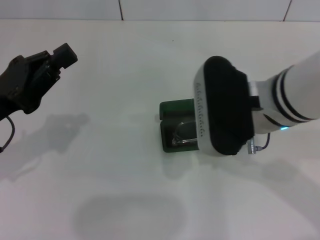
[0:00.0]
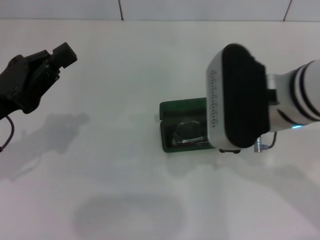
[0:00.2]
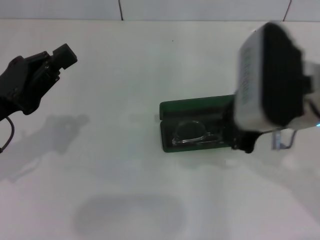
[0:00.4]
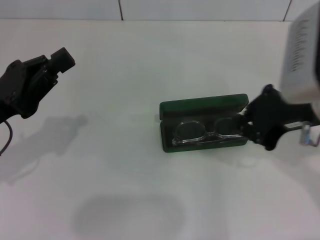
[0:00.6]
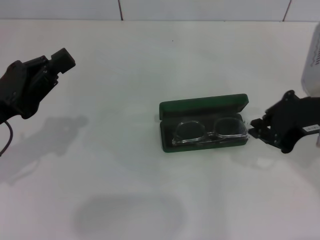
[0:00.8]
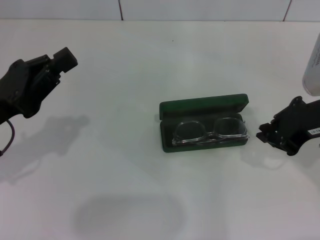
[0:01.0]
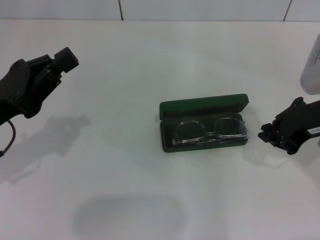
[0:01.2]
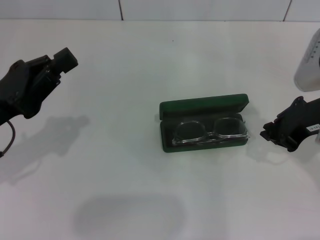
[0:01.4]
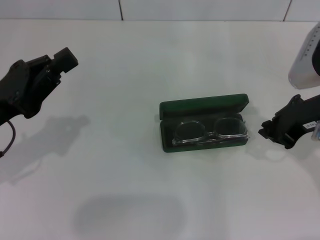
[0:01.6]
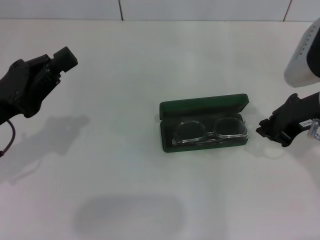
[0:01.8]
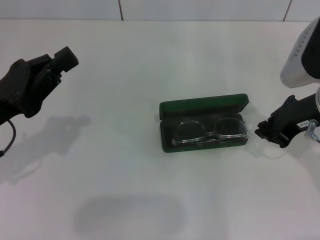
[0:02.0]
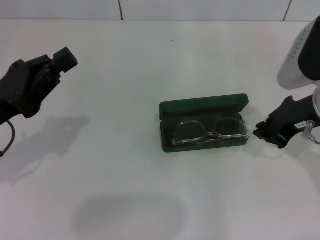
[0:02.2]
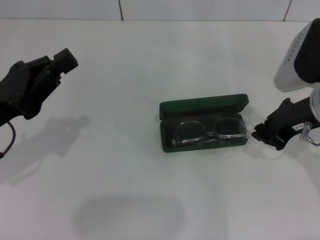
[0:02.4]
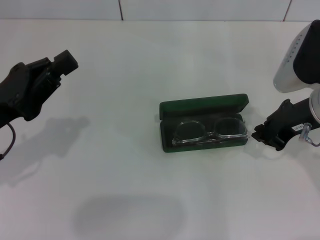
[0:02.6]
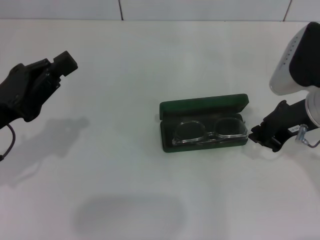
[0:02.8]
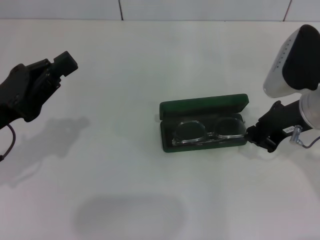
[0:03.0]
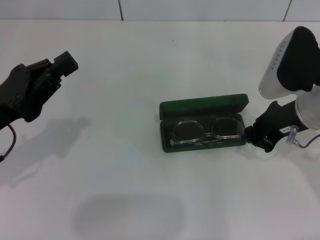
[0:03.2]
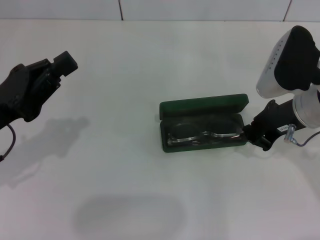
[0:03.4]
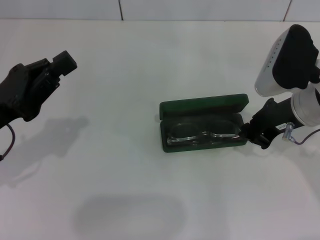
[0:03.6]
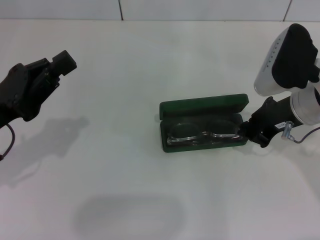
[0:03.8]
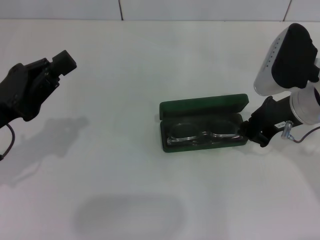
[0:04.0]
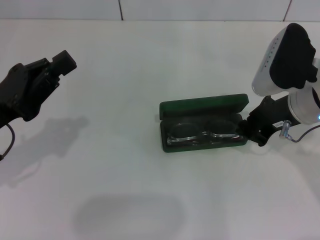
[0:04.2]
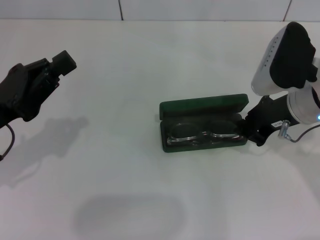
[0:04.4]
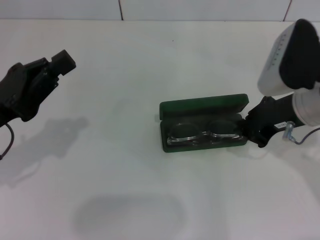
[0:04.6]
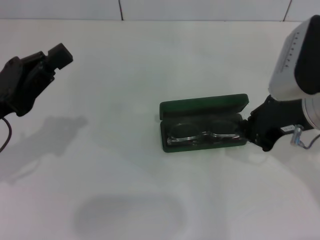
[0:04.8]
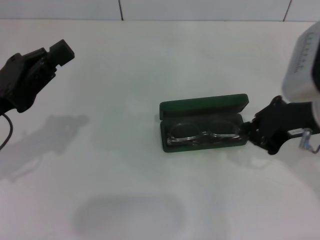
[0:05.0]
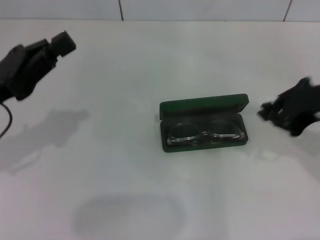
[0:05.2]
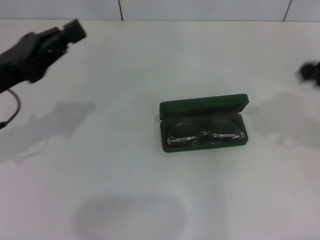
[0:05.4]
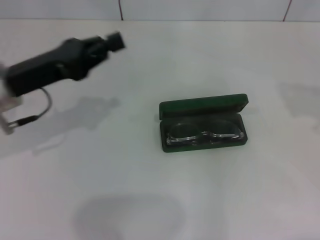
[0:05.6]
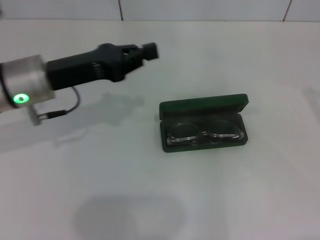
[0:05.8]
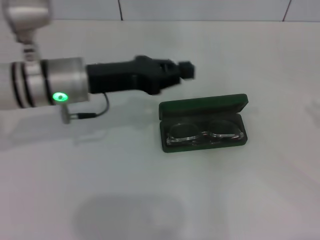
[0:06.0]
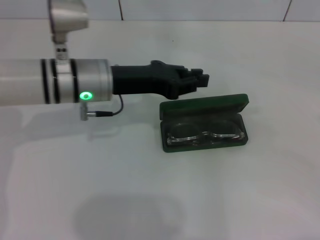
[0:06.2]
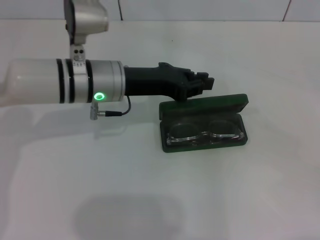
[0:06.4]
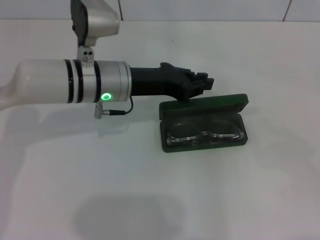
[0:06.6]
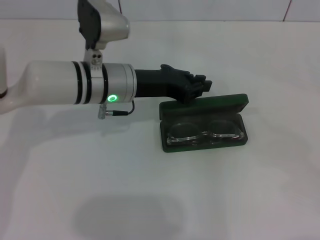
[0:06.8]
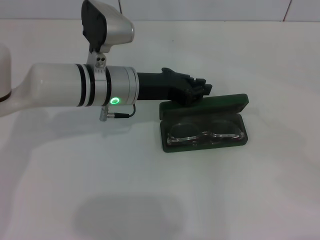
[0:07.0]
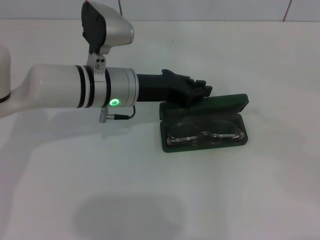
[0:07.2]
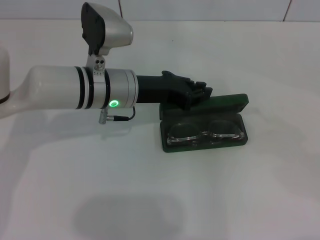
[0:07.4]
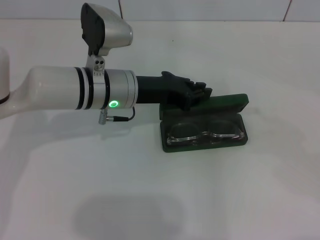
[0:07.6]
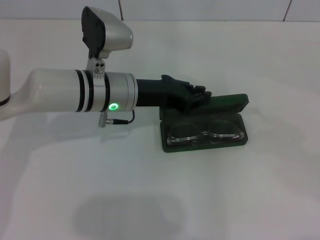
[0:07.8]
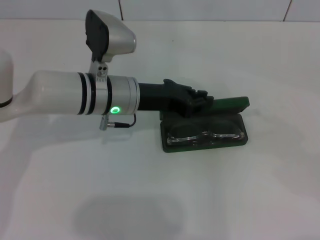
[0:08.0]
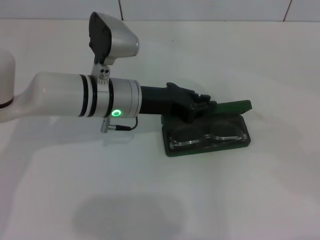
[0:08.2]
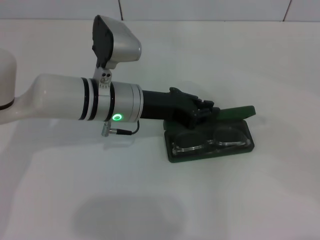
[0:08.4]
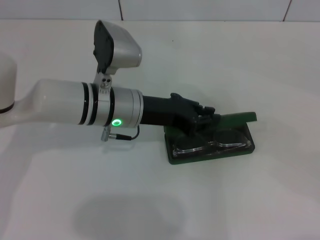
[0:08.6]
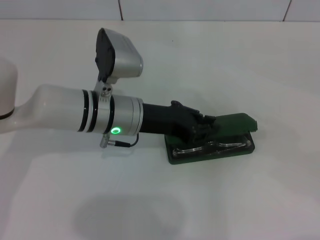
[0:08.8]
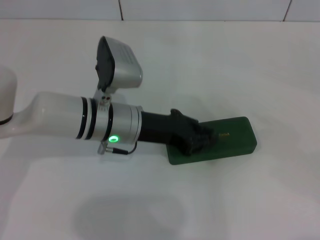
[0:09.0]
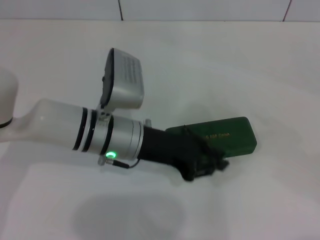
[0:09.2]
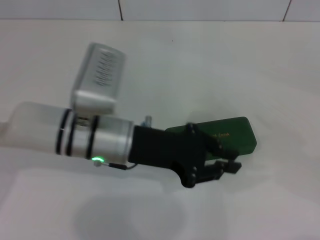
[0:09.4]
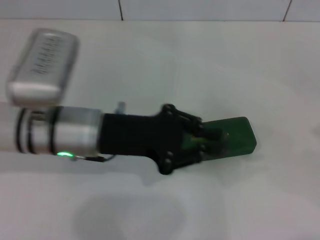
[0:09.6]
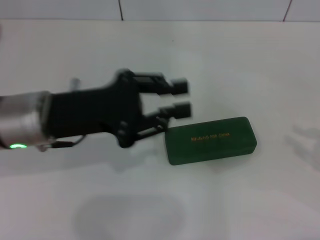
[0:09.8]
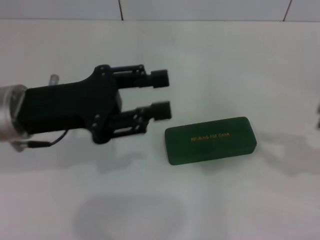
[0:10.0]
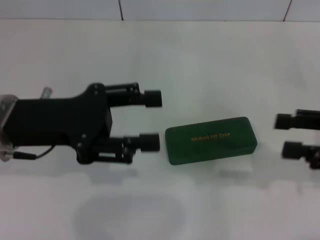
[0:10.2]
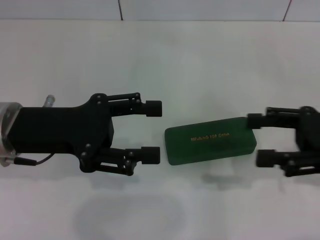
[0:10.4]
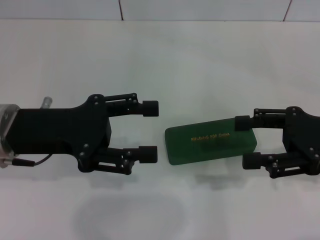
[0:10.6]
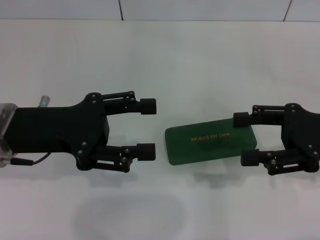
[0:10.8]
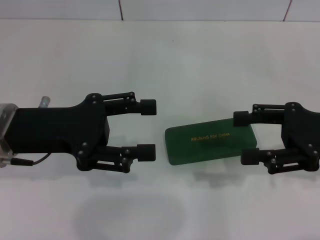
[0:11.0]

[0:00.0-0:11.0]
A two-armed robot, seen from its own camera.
Step, 0:00.0 to 0:05.0: Put the glasses into the case with your right hand.
Step, 0:05.2 to 0:09.4: Close the glasses case with your left hand.
0:00.0 to 0:01.6: The right gripper travels to the right by about 10 cm.
0:01.6 to 0:04.8: The grippers stay close to where they were, moving slightly.
0:04.8 to 0:06.2: The right gripper heads to the right and backward, covering approximately 30 cm, while the left gripper is displaced to the right and forward by about 20 cm.
0:06.2 to 0:07.8: There are only small adjustments of the grippers.
0:07.8 to 0:09.4: The left gripper is displaced backward by roughly 5 cm.
0:09.4 to 0:11.0: The right gripper heads to the left and forward, covering about 20 cm, and opens up, while the left gripper is displaced to the left by roughly 10 cm, and opens its fingers.
